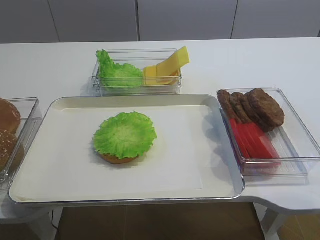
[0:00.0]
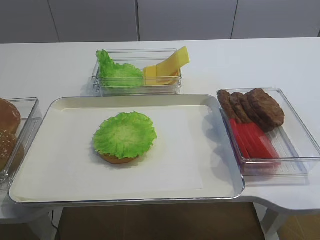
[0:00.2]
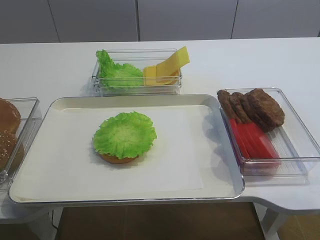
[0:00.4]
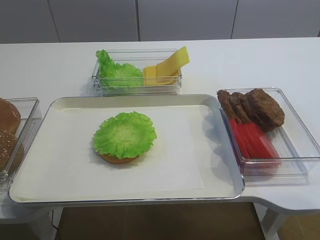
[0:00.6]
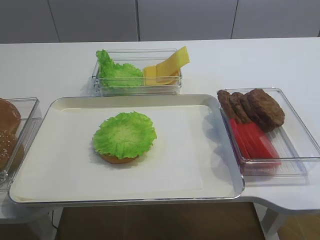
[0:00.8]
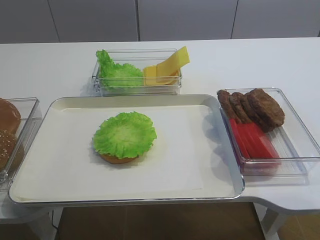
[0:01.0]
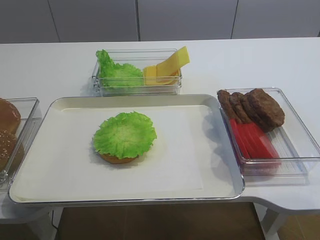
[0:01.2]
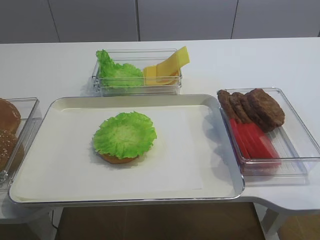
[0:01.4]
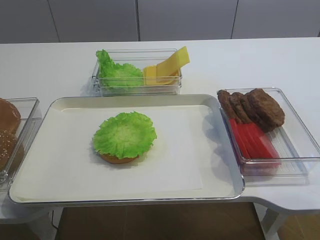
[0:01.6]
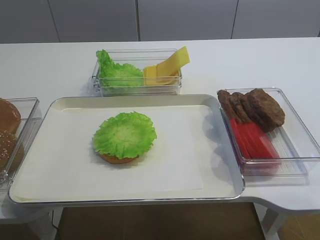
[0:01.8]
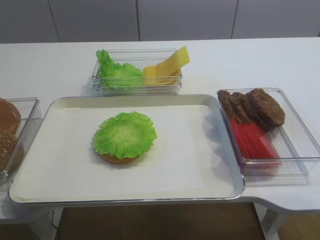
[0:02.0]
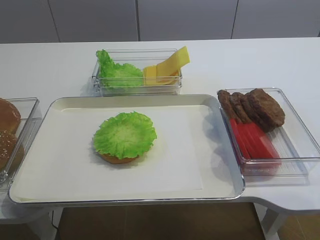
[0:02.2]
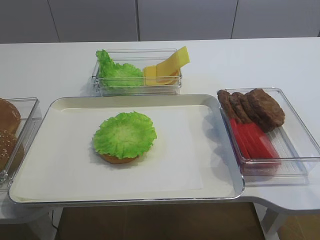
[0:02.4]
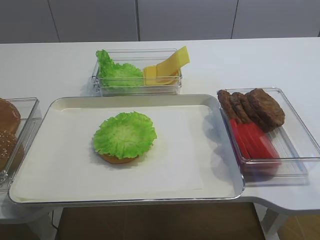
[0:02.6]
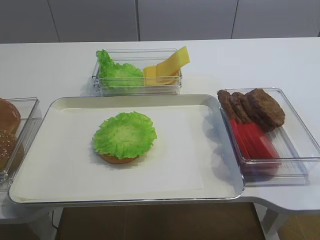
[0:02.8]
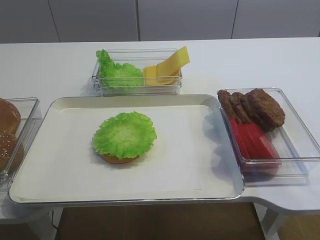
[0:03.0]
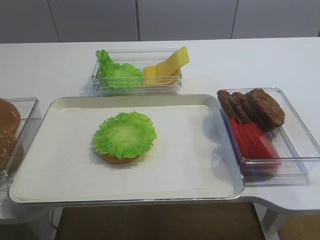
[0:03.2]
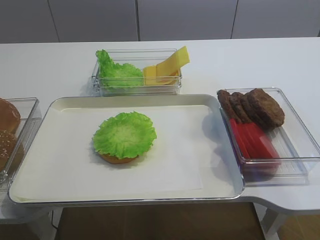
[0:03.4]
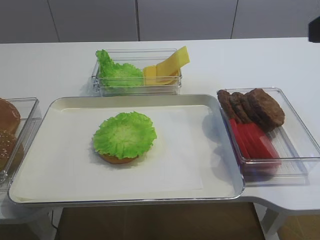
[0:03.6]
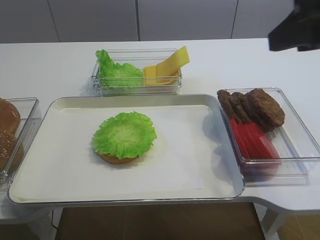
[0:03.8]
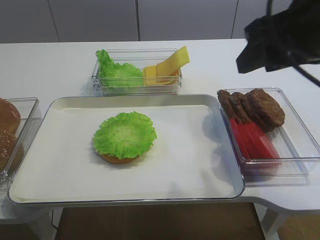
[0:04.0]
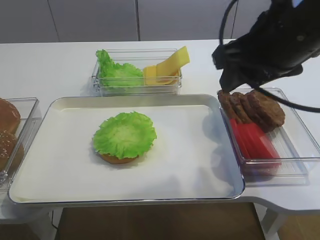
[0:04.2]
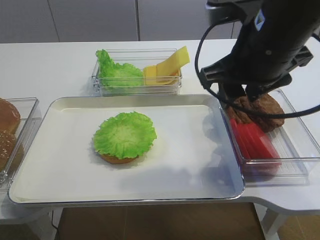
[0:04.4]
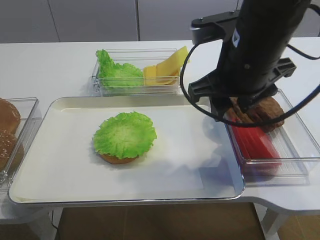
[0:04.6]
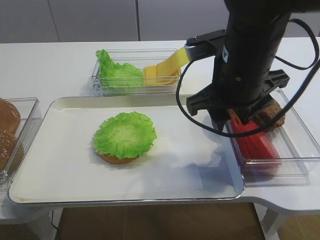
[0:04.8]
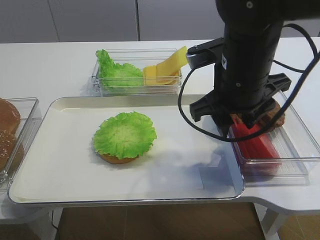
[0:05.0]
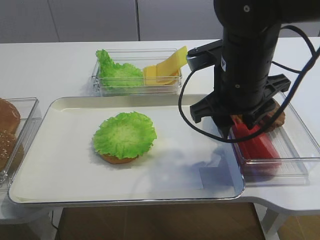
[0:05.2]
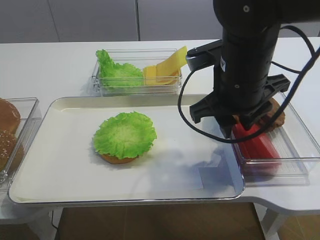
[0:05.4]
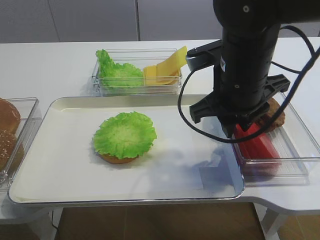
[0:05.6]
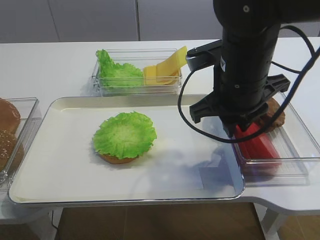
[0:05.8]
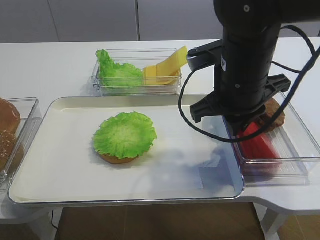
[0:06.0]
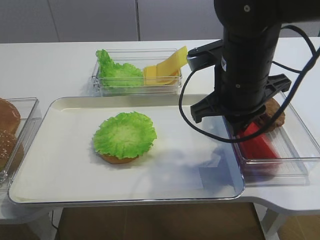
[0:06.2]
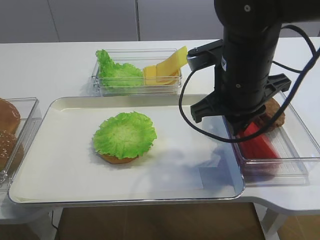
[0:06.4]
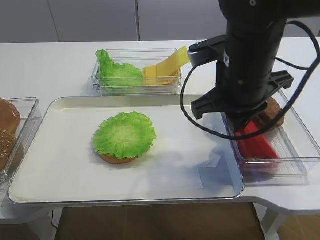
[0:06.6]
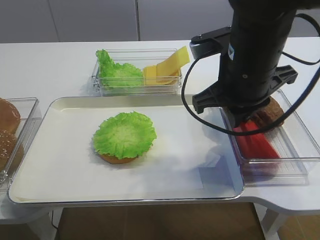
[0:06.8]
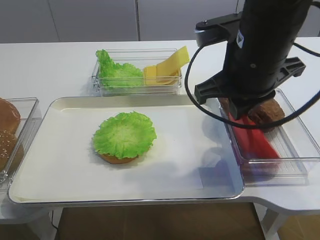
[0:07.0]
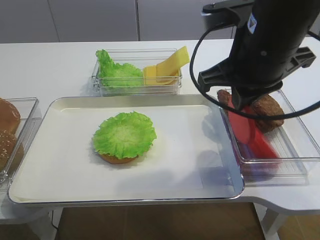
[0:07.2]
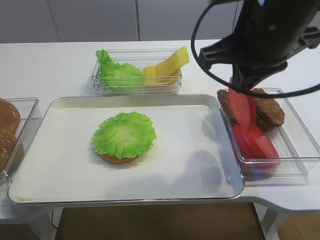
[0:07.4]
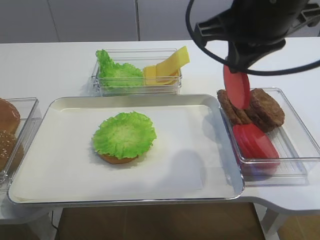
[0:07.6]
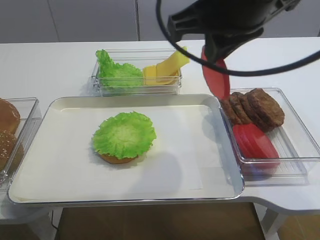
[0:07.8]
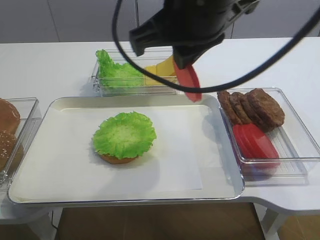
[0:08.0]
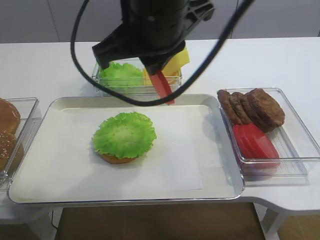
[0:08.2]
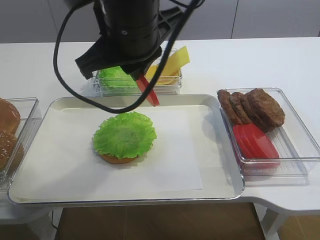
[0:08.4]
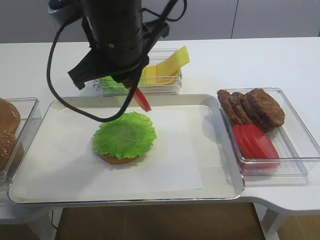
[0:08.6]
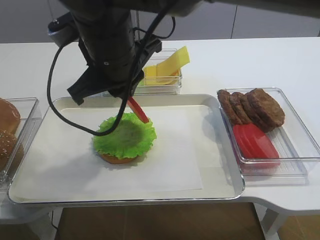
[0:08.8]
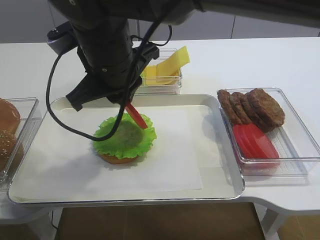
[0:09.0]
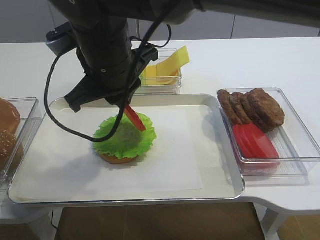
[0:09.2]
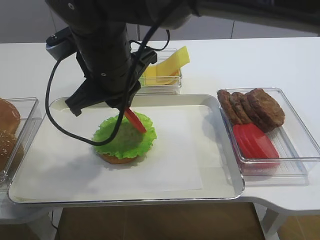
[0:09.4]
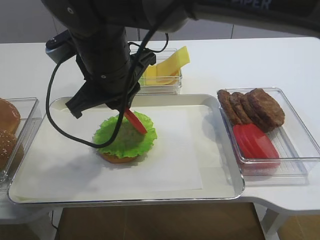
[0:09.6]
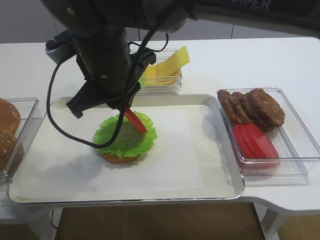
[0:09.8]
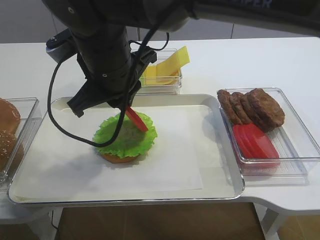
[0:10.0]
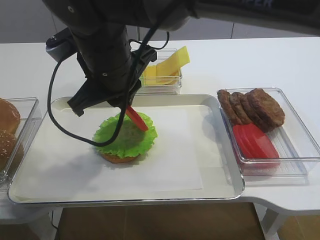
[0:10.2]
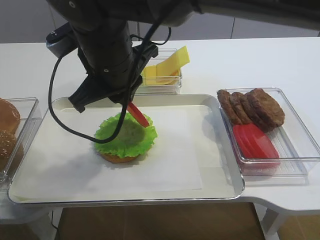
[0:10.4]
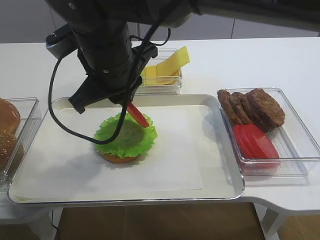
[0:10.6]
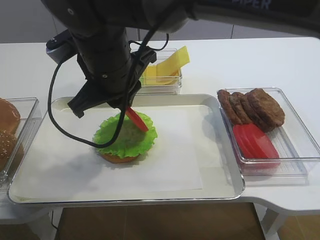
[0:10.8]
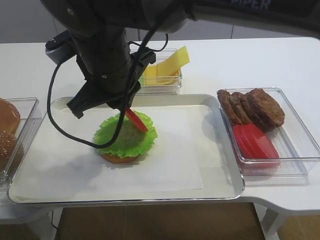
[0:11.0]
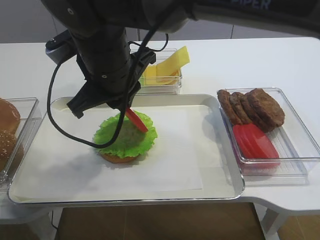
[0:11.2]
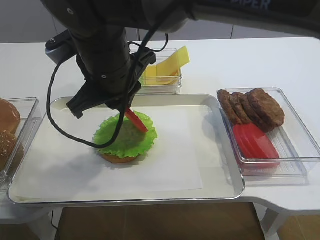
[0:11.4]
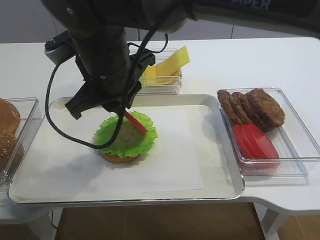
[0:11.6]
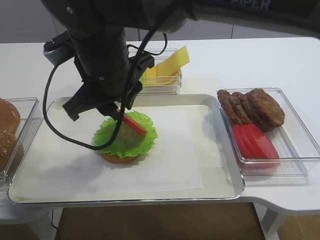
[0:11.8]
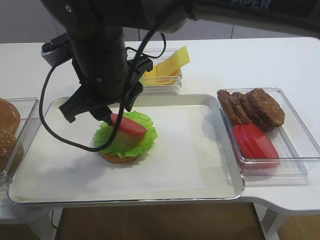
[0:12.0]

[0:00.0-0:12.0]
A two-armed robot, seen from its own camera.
Step, 0:00.0 to 0:07.0: Pick up the tomato slice with the right gripper.
0:01.6 to 0:03.0: The right gripper is displaced forward and upward by some 10 cm.
0:03.0 to 0:04.4: The right gripper moves forward and to the left, roughly 20 cm.
0:04.4 to 0:06.0: The right gripper changes place by about 5 cm, and closes up.
0:06.0 to 0:07.6: The right gripper shifts about 10 cm upward.
0:07.6 to 0:09.0: The right gripper goes approximately 20 cm to the left and downward.
0:09.0 to 0:10.4: The two grippers keep their place.
0:10.4 to 0:12.0: The right gripper opens its fingers.

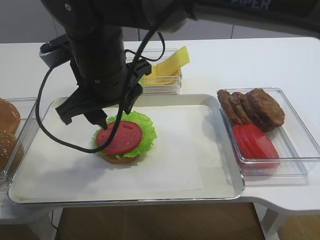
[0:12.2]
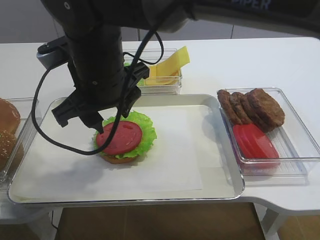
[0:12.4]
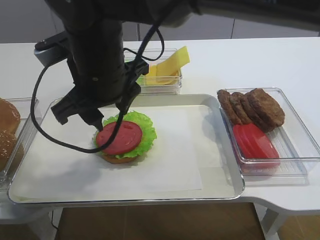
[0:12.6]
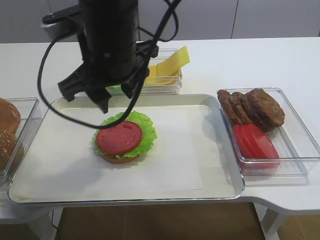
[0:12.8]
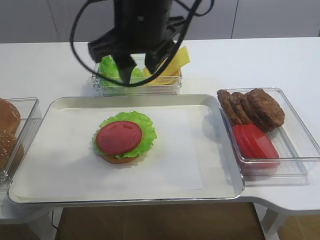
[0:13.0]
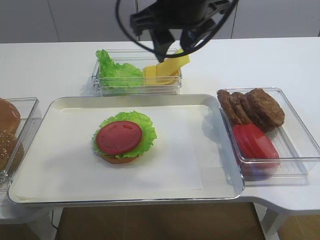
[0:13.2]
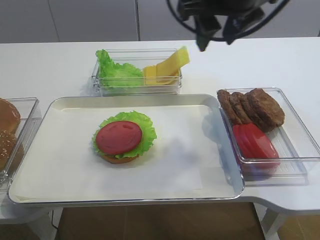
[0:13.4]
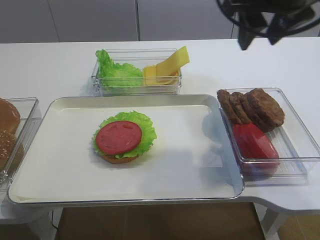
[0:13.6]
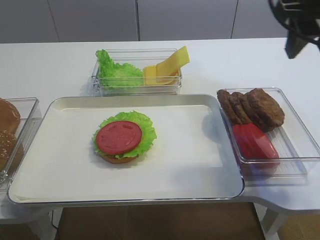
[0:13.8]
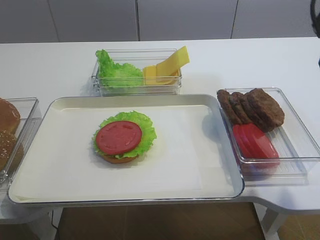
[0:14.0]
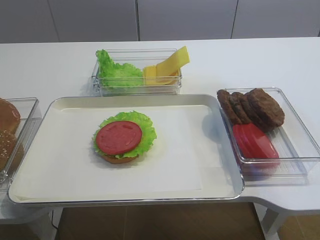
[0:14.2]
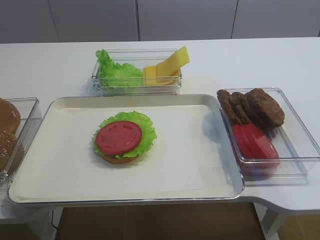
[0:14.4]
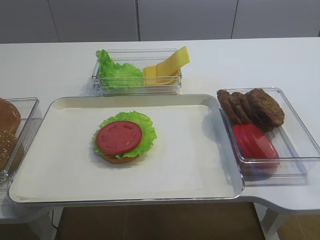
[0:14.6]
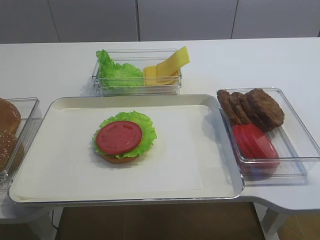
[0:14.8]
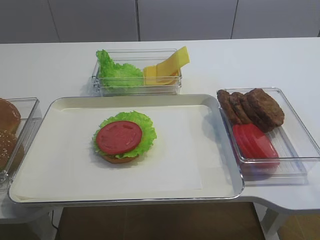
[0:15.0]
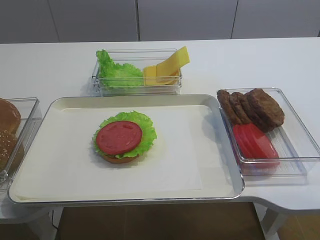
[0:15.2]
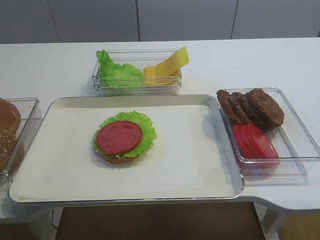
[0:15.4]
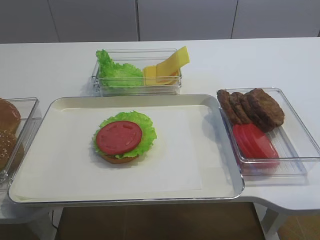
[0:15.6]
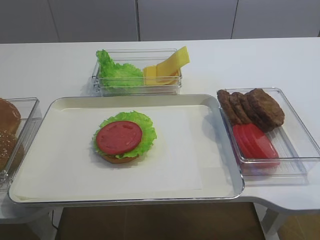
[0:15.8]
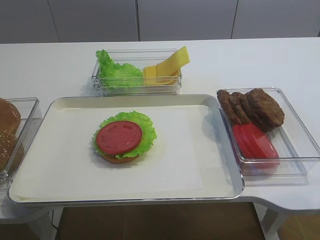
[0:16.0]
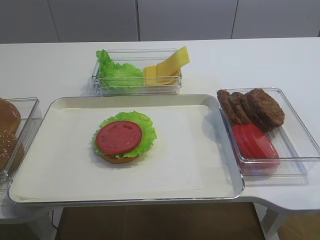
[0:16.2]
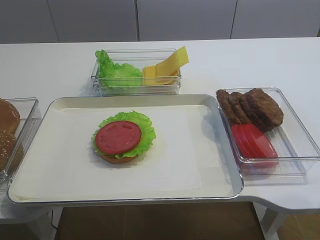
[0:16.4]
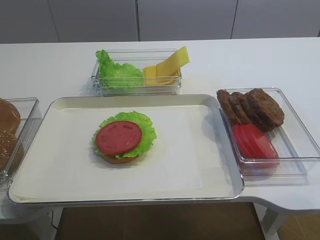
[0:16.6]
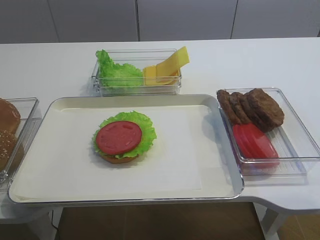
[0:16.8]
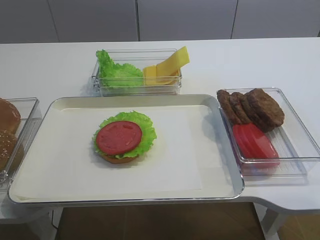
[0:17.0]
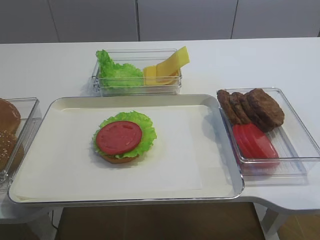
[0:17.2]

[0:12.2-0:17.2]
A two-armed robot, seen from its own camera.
0:12.2 to 0:13.8: The right gripper shifts approximately 30 cm to the right.
0:13.8 to 0:15.6: The right gripper shifts some 30 cm backward.

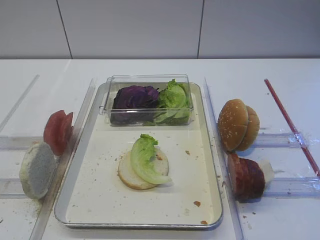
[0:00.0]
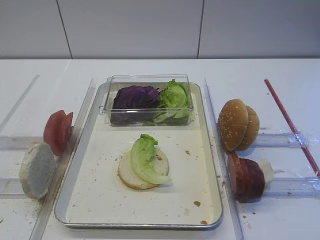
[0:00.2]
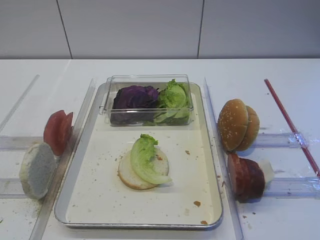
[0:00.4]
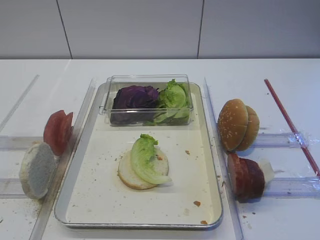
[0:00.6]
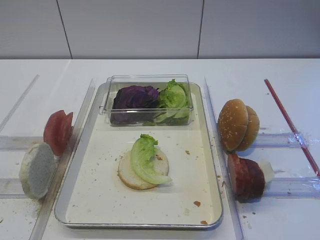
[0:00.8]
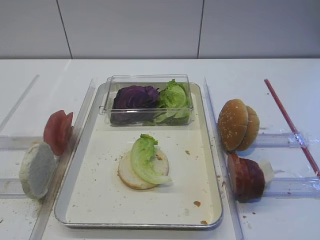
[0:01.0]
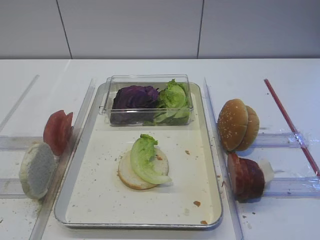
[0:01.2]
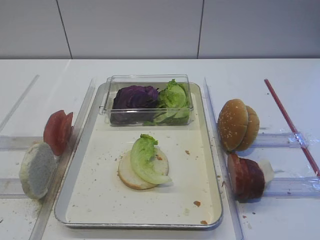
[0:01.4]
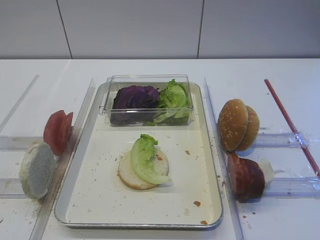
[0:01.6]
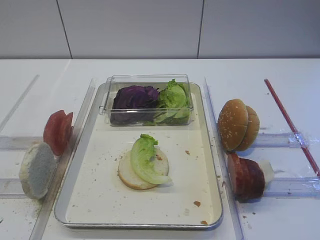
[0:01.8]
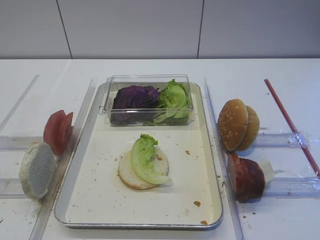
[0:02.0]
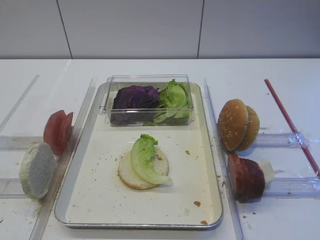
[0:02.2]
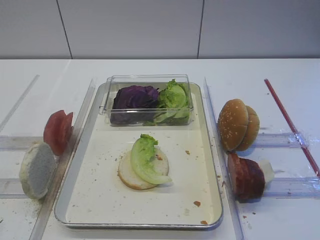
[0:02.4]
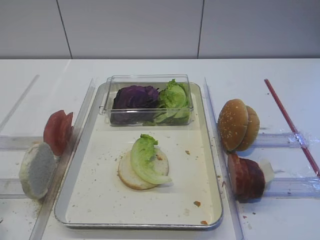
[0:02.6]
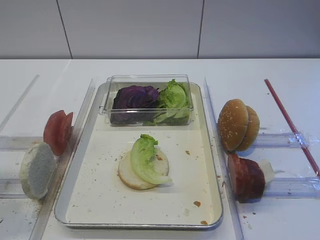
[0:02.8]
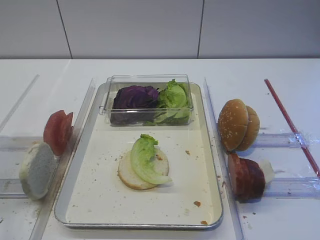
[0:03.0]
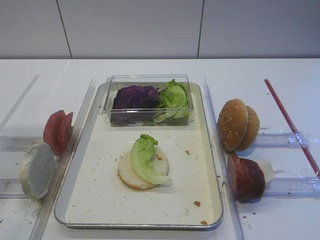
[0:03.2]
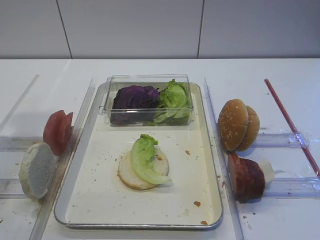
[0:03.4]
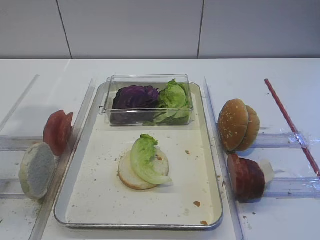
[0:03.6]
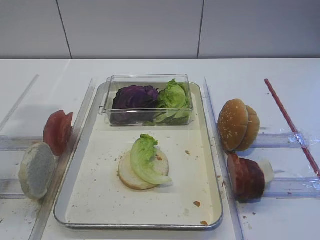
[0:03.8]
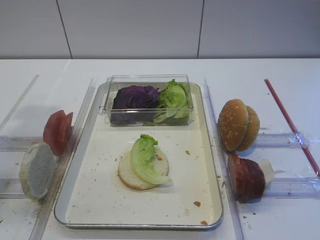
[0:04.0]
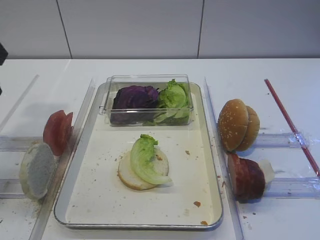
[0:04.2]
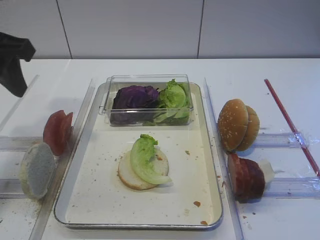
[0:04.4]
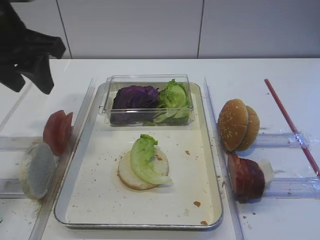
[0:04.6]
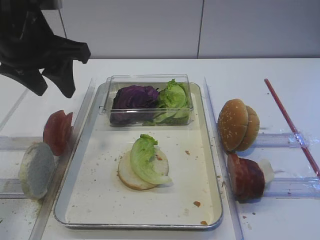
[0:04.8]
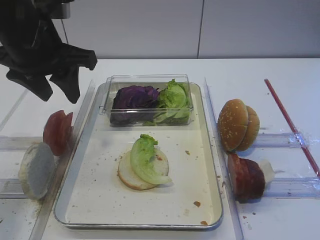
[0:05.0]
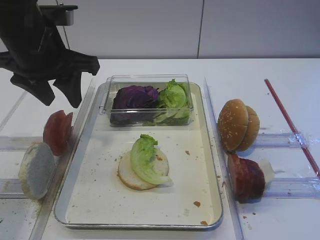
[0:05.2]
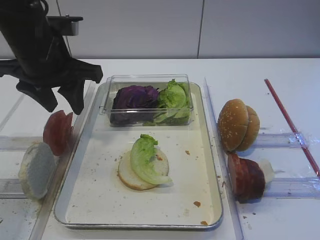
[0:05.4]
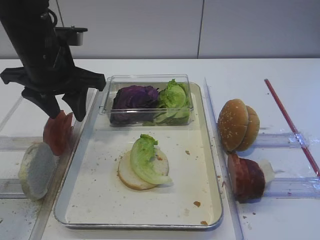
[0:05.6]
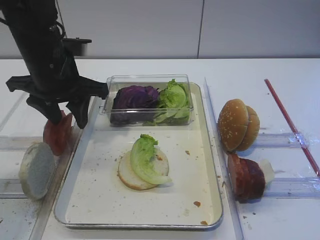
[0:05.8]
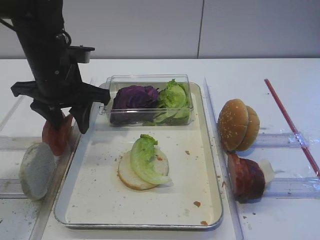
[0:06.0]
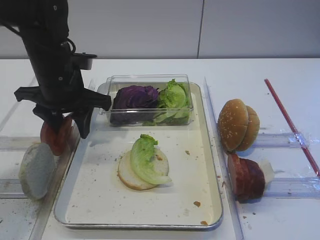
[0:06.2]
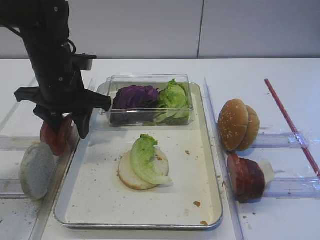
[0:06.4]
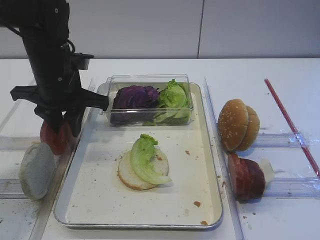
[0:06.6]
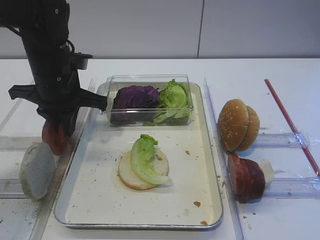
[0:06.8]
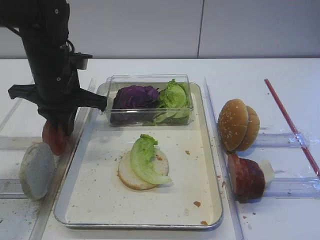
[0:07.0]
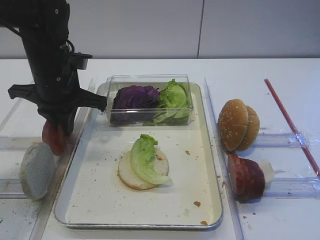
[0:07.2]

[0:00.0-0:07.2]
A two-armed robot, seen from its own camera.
0:01.4 to 0:02.8: The left gripper heads upward and forward, covering roughly 10 cm.
0:02.8 to 0:04.4: The left gripper goes about 20 cm forward.
0:04.4 to 0:05.8: The left gripper heads downward, to the right and forward, covering about 15 cm.
0:05.8 to 0:07.2: The left gripper closes up.
